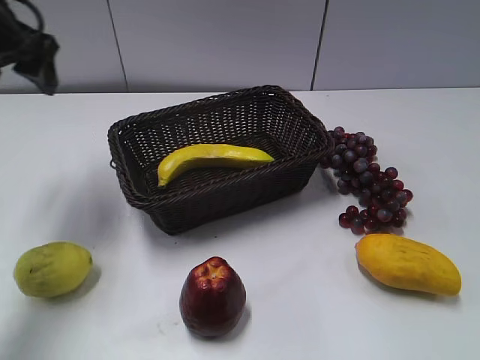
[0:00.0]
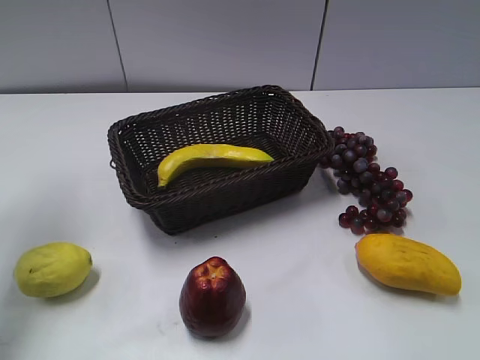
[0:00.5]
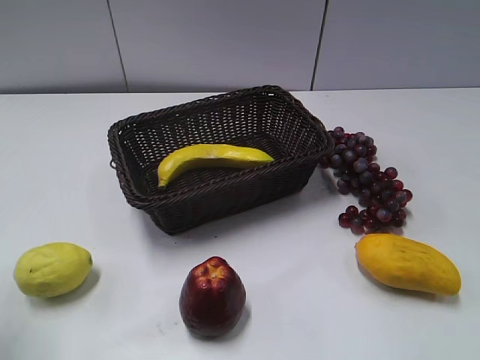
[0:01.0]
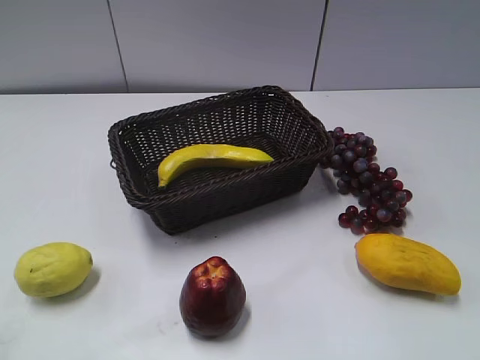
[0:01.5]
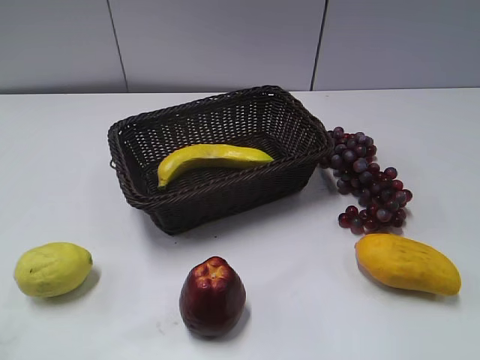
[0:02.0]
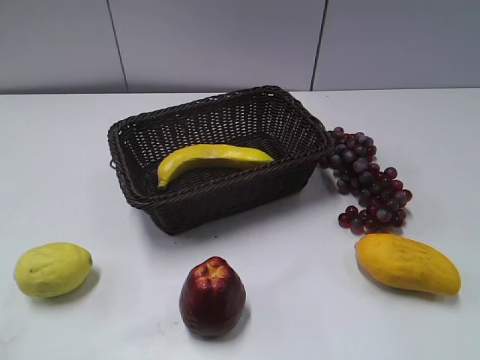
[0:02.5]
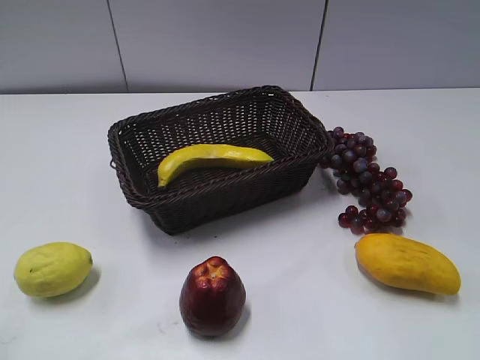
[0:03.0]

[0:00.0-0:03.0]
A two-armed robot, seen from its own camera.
0:00.0 to 0:01.5: The left gripper heads backward, covering about 35 cm.

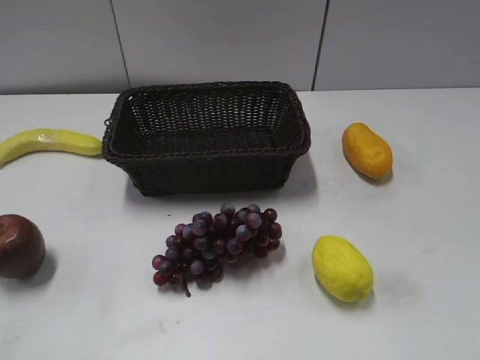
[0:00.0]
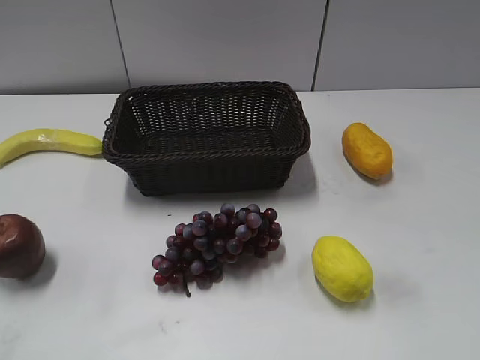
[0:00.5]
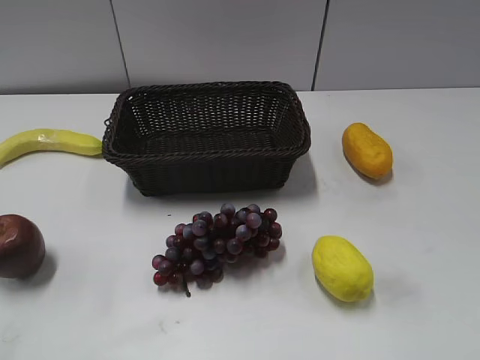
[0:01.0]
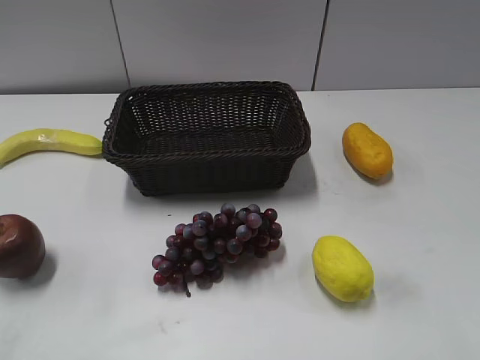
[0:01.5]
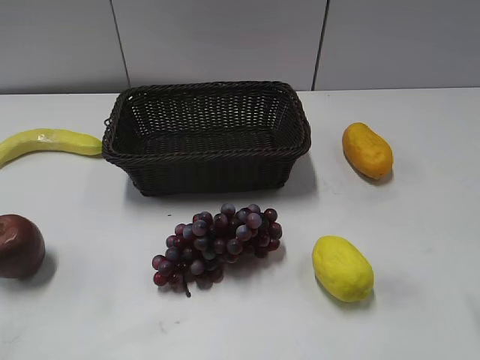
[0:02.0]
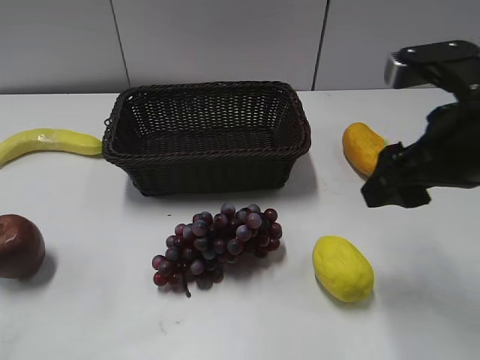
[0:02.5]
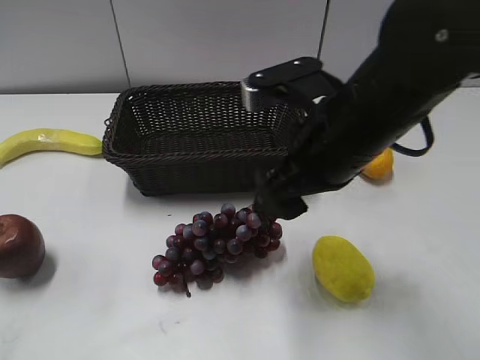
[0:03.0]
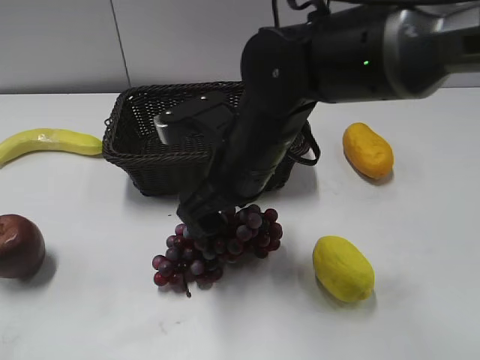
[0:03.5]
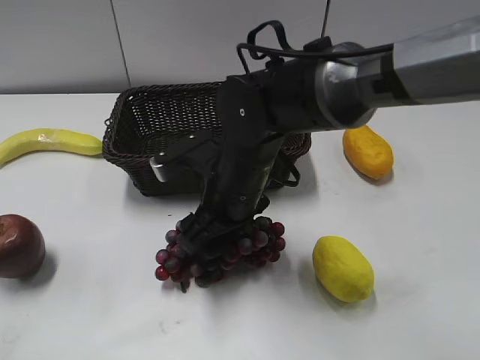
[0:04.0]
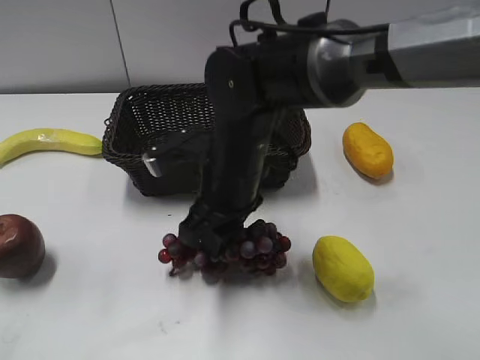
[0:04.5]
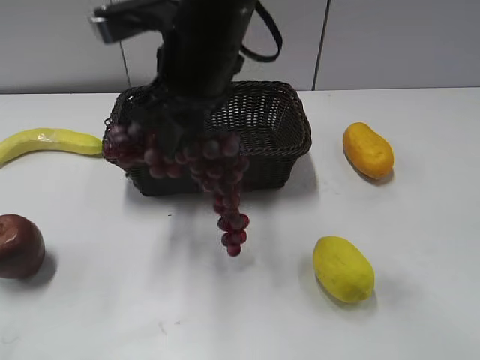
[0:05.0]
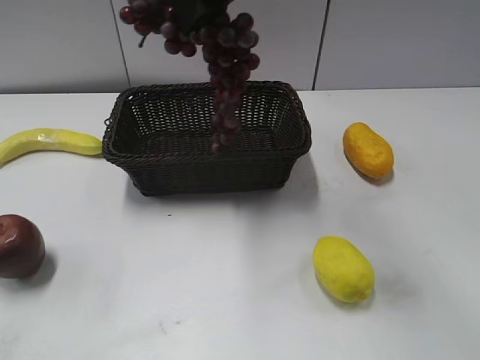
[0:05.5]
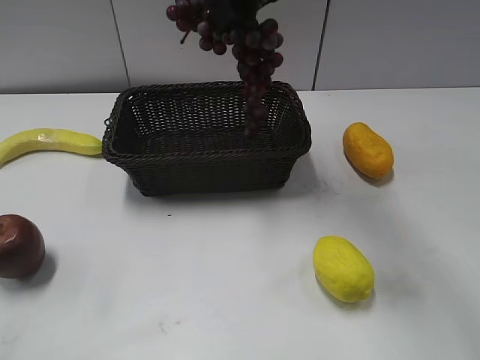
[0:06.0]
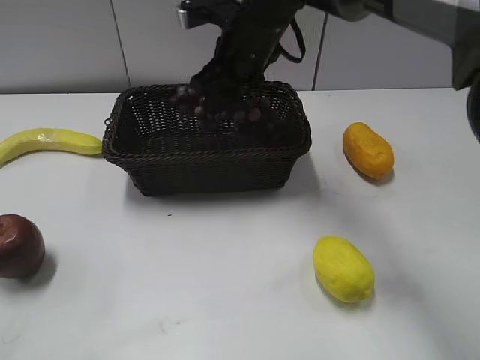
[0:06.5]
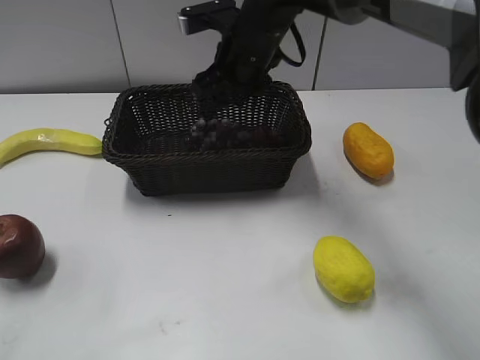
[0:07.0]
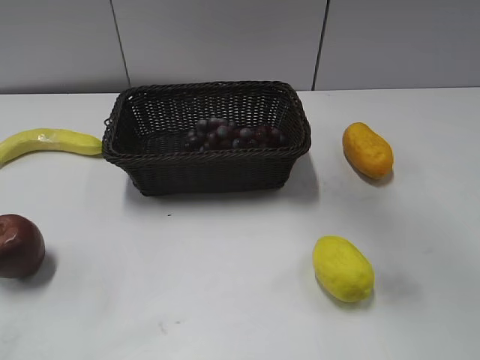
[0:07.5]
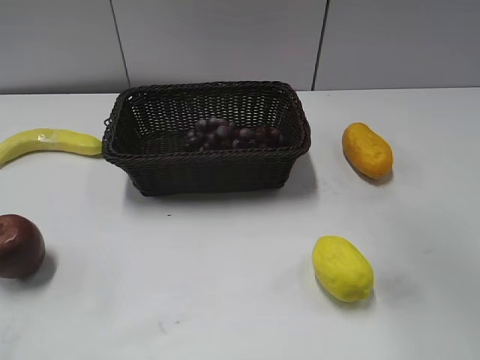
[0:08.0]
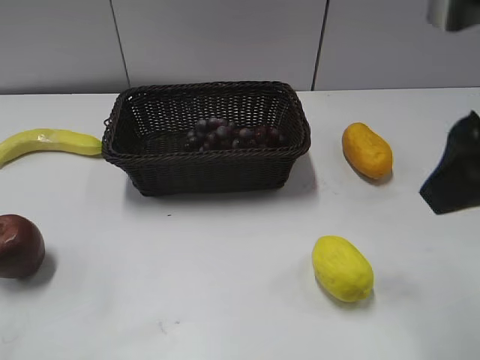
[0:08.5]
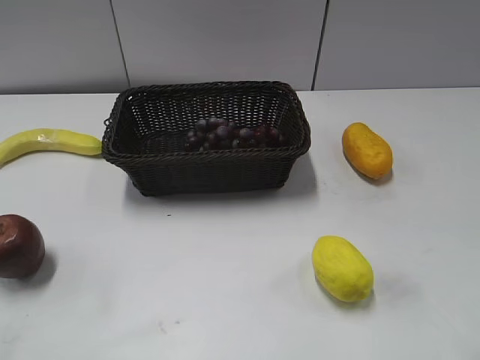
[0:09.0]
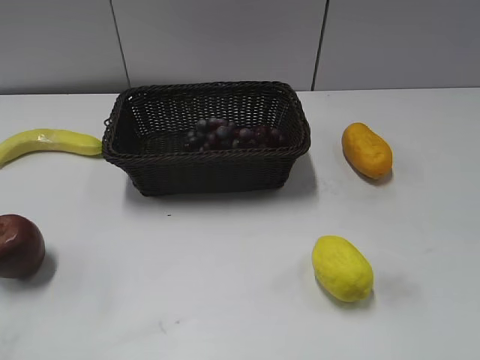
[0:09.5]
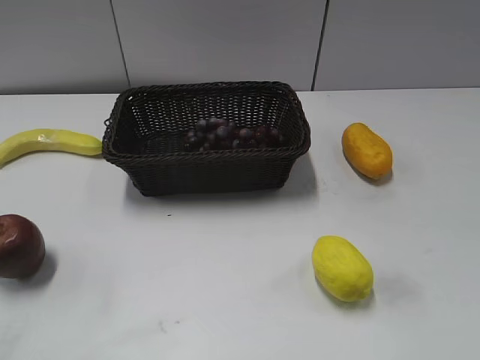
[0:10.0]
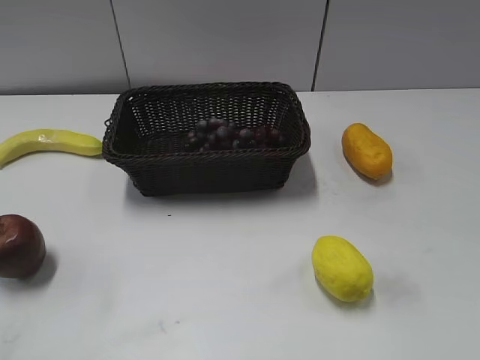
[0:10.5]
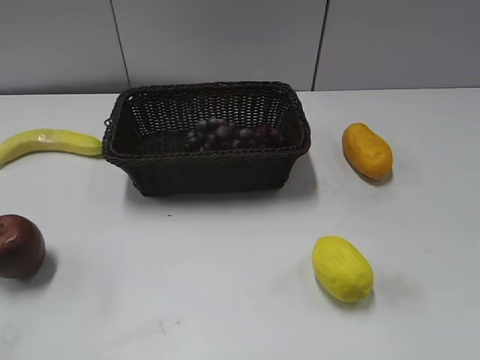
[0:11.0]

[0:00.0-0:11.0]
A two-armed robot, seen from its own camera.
Step, 0:02.0 to 0:04.5: Grasp the grape with right gripper.
Step, 0:05.0 to 0:07.0: Place the grape in the basket with right gripper.
0:02.0 to 0:03.5: The right gripper goes some 25 cm to the left.
0:03.5 to 0:05.5: The right gripper is displaced upward and forward by some 20 cm, and closes.
0:05.5 to 0:07.5: The right gripper moves to the right, about 5 cm, travels downward and back again, approximately 15 cm each way, and opens up.
0:07.5 to 0:09.0: The right gripper is displaced backward, to the right and downward by approximately 30 cm.
